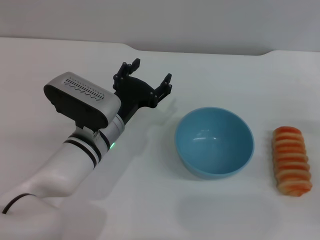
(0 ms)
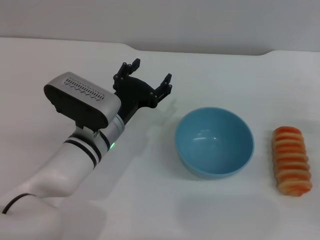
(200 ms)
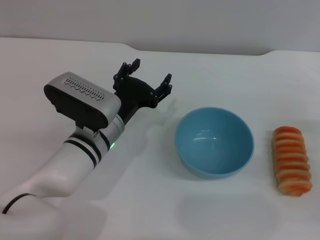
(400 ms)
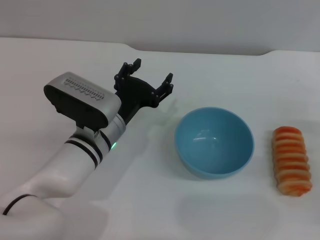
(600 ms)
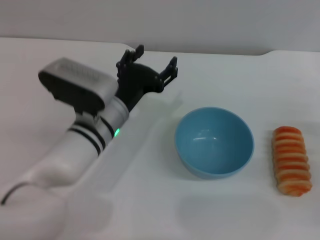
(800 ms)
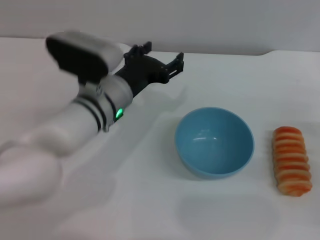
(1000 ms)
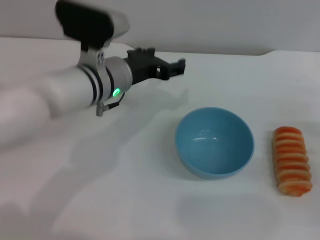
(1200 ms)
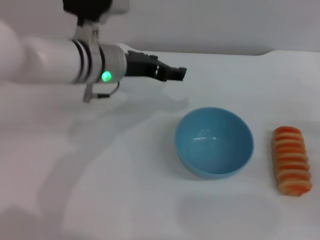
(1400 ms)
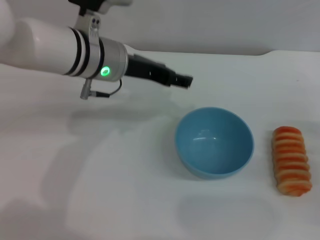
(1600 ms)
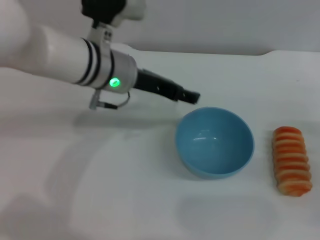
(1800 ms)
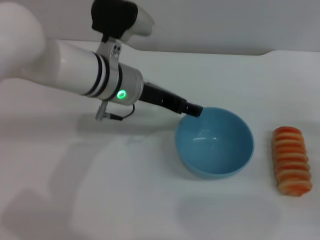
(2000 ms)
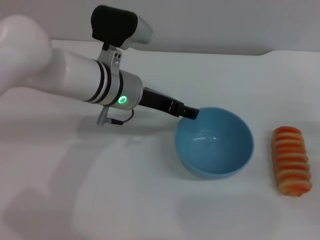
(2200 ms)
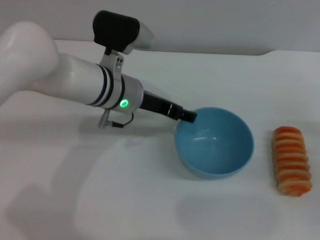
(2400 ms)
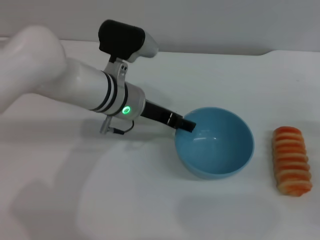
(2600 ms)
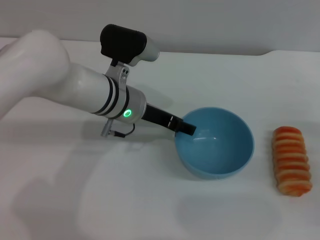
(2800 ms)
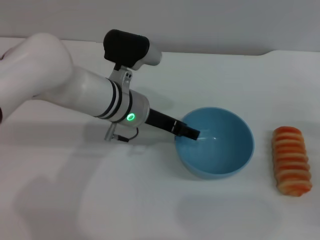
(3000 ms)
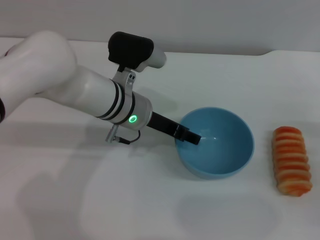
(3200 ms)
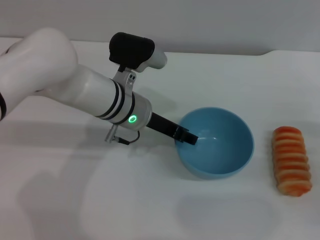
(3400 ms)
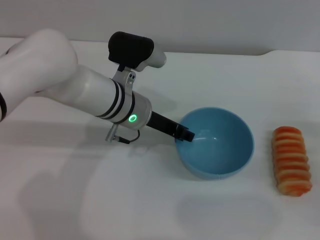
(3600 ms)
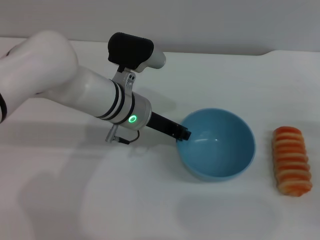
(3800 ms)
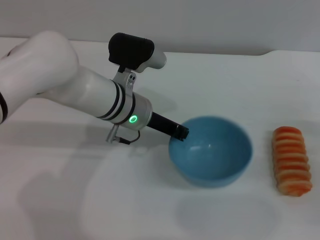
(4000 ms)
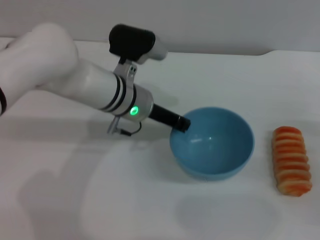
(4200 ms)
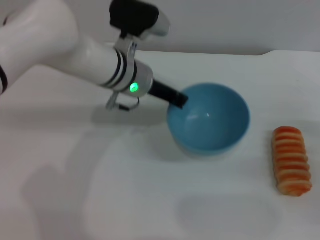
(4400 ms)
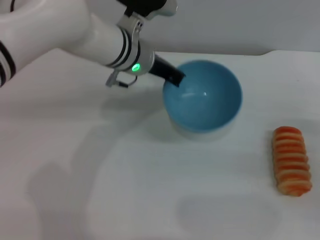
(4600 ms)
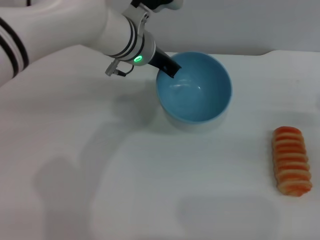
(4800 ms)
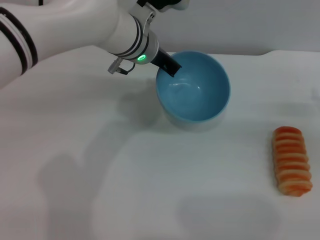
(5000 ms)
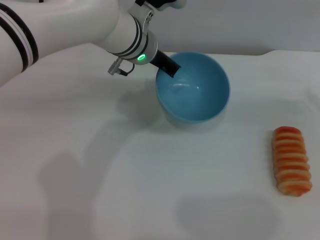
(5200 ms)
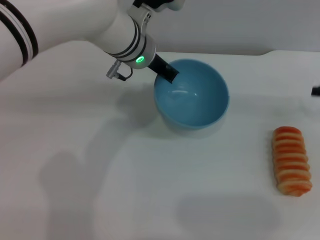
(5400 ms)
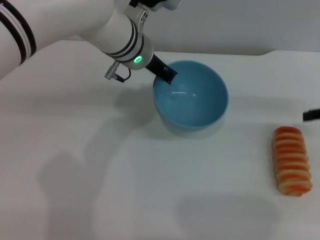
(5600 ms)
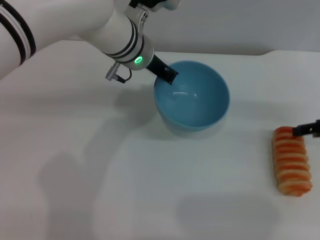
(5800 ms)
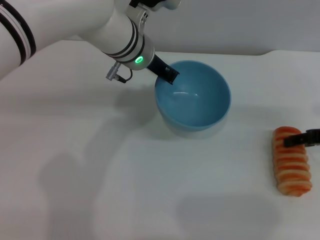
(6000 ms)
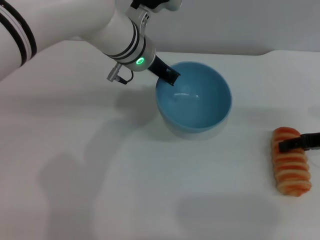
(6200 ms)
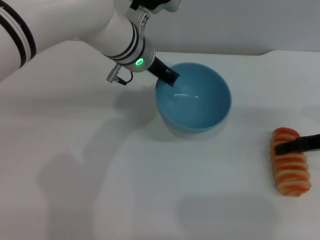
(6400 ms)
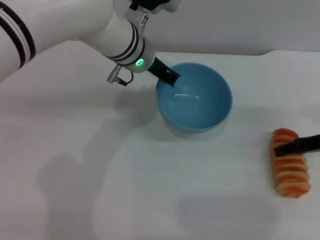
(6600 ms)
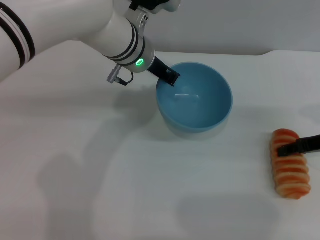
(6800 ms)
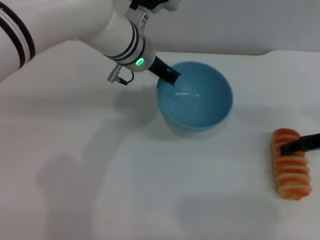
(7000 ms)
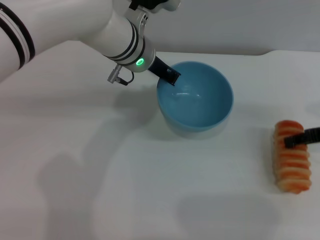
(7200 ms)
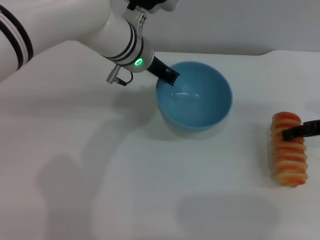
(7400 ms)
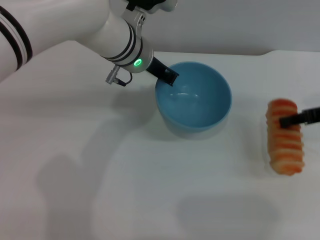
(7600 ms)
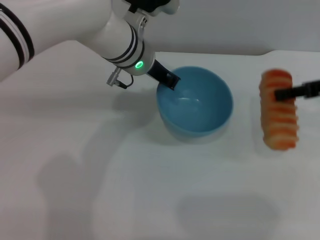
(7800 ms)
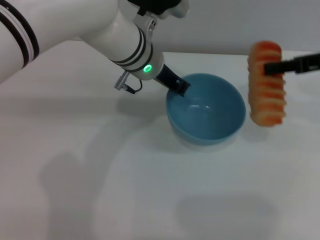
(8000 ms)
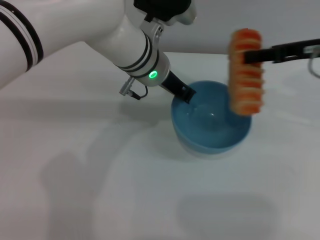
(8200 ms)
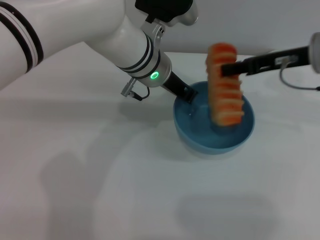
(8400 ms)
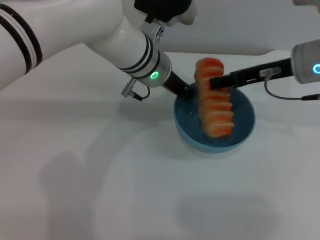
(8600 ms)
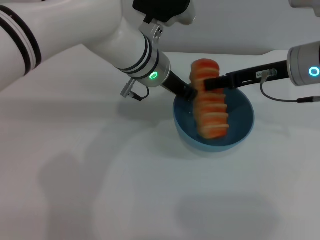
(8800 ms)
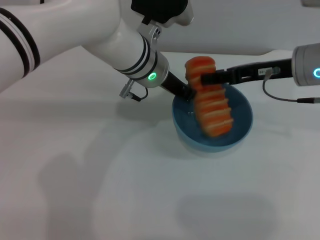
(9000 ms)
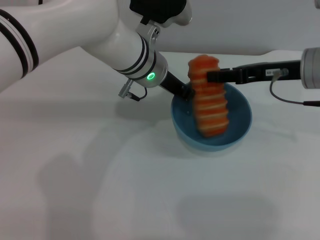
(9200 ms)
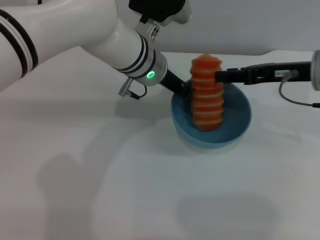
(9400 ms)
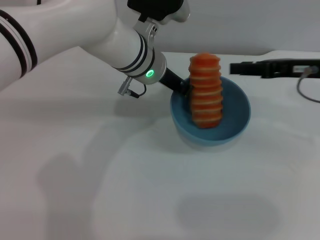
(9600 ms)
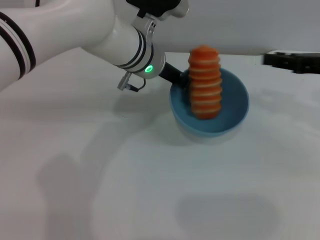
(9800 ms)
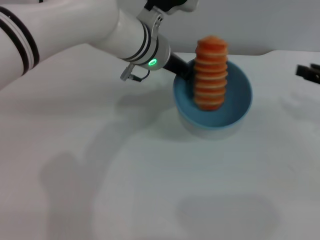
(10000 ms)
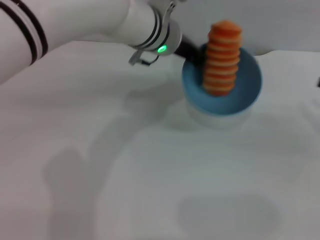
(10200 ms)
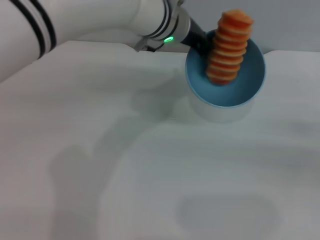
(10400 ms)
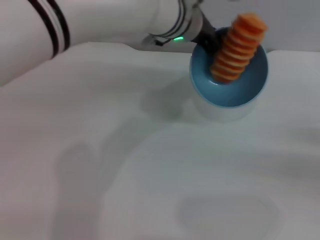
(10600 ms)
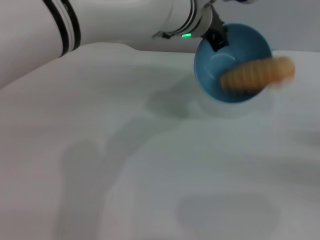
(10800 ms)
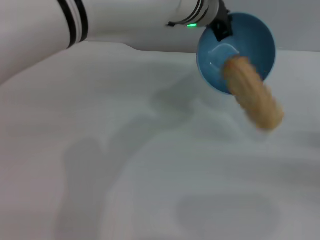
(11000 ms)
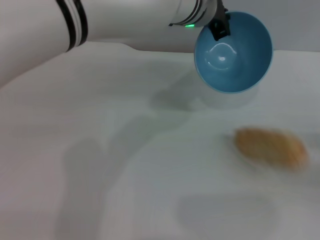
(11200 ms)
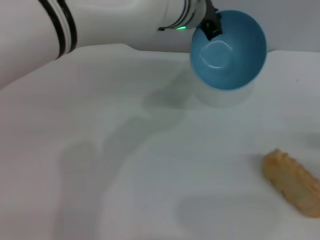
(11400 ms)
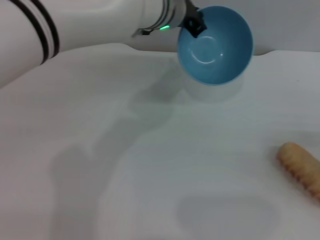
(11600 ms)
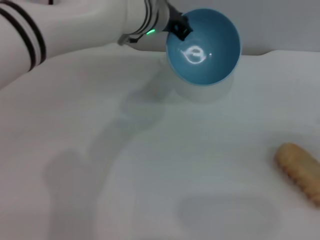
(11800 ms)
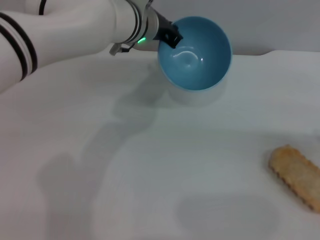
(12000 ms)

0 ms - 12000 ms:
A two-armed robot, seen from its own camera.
Task of the whole recording: put the bread into the blue bowl and pour it out repeatedly.
Step, 0 ms - 4200 ms: Pick up the bowl with the left gripper.
Step, 4400 ms - 7400 ms: Pick up the bread with the right gripper.
Step, 7600 ms - 9400 ms: Place the bread into the bowl.
Step, 9800 ms - 11200 ms: Pour the bread out of the bowl.
0 ms - 1600 ms: The left gripper is displaced upward and forward by approximately 15 cm.
1600 ms - 3000 ms: The left gripper shifts about 10 cm downward.
3000 ms - 4400 ms: The left gripper closes up.
4400 ms - 6000 ms: The right gripper travels forward and upward by approximately 10 cm.
6000 ms - 7600 ms: The right gripper closes its fingers.
7600 ms - 9000 ms: The right gripper goes about 10 cm to the left.
9000 ms - 10400 ms: The left gripper shifts by about 5 cm; the right gripper travels to the right, backward and downward by approximately 25 cm.

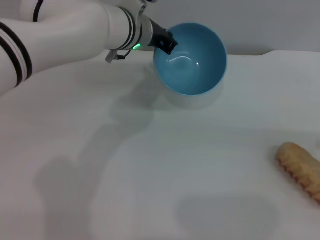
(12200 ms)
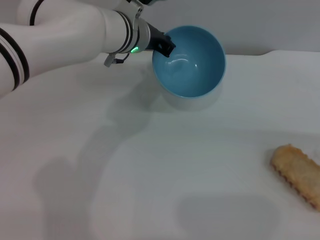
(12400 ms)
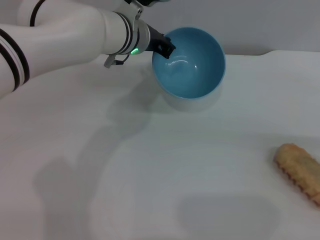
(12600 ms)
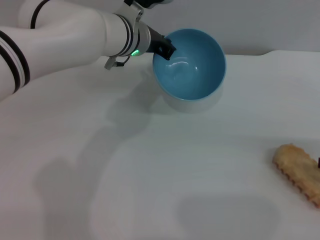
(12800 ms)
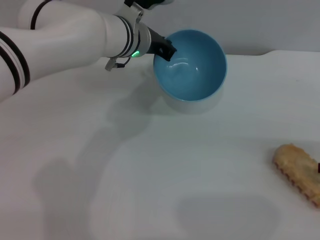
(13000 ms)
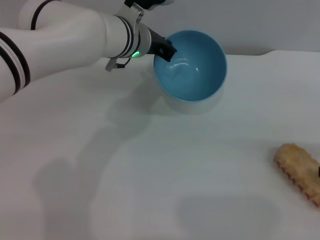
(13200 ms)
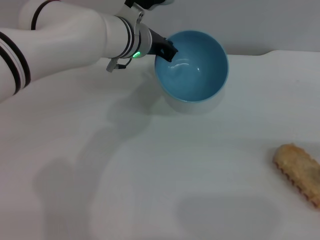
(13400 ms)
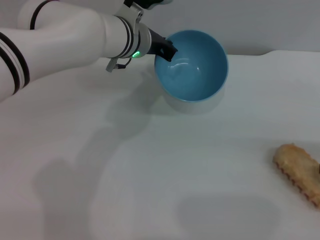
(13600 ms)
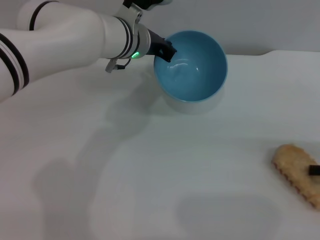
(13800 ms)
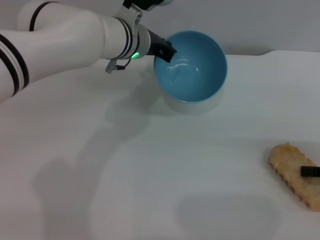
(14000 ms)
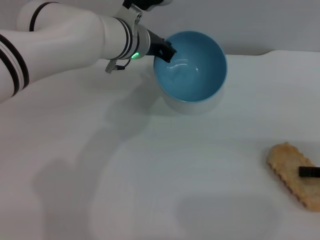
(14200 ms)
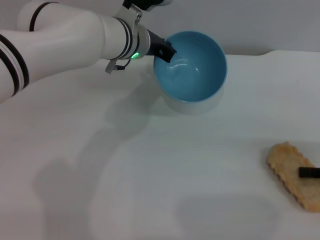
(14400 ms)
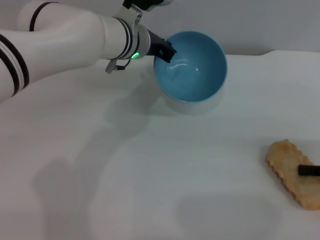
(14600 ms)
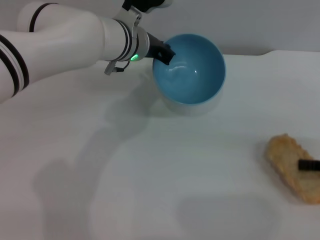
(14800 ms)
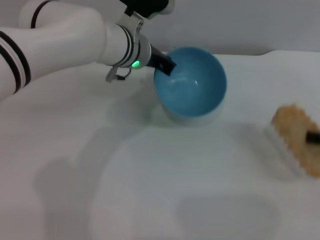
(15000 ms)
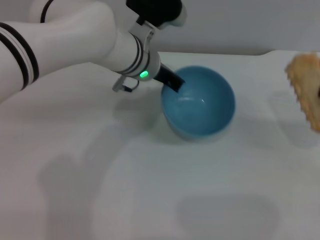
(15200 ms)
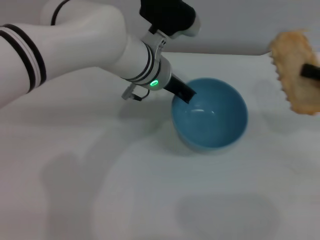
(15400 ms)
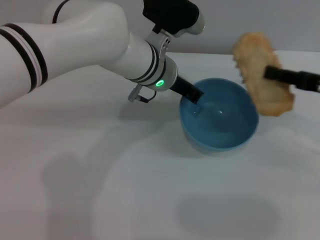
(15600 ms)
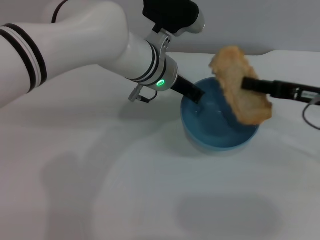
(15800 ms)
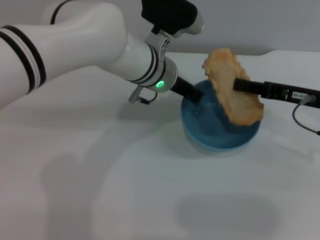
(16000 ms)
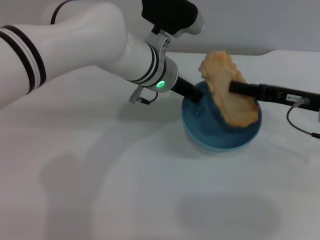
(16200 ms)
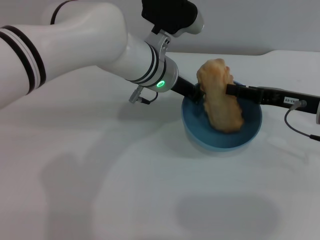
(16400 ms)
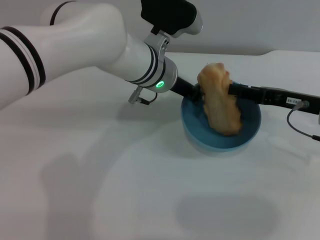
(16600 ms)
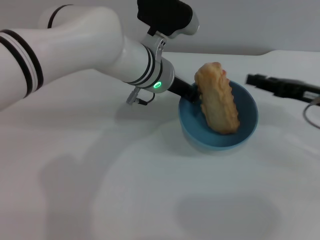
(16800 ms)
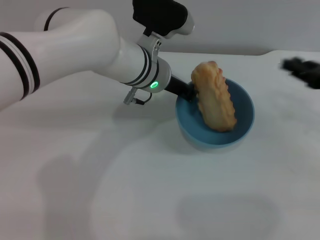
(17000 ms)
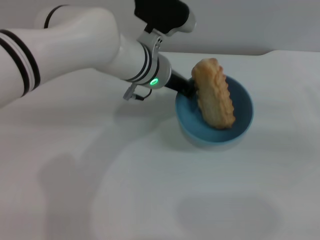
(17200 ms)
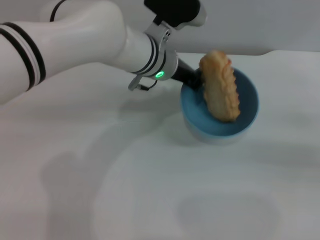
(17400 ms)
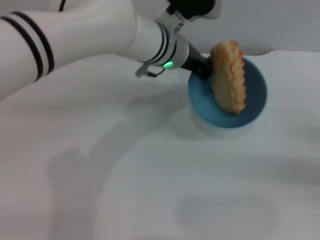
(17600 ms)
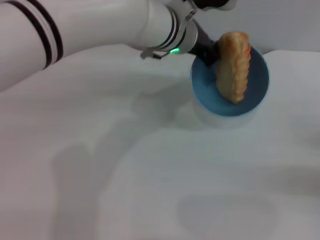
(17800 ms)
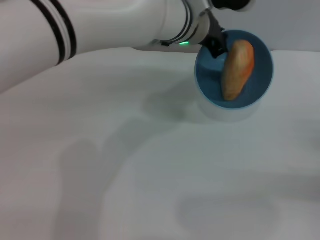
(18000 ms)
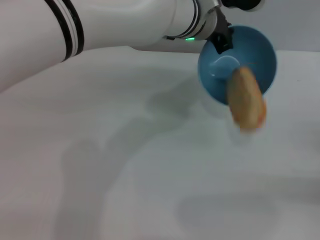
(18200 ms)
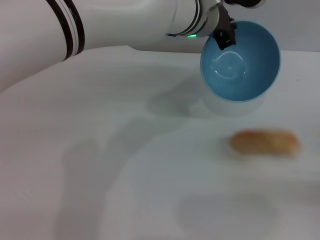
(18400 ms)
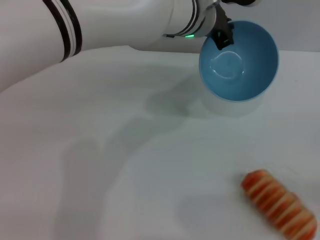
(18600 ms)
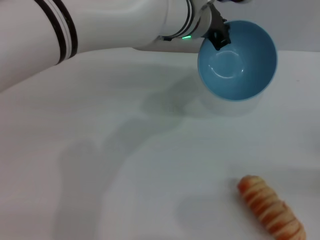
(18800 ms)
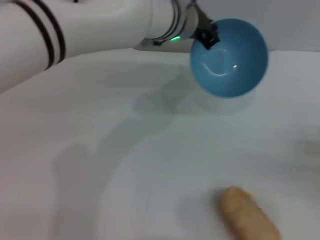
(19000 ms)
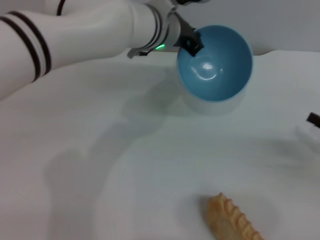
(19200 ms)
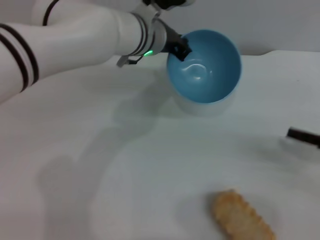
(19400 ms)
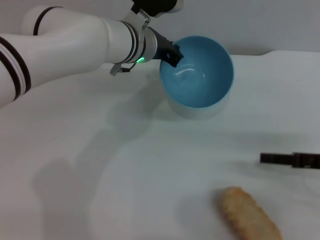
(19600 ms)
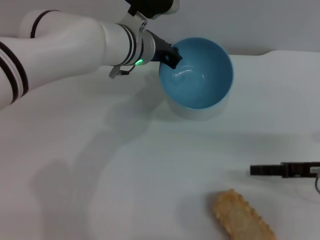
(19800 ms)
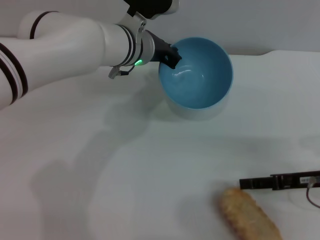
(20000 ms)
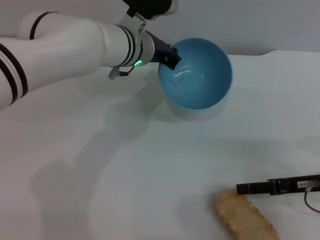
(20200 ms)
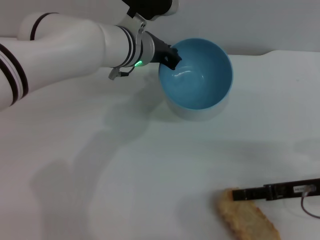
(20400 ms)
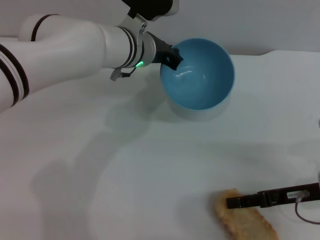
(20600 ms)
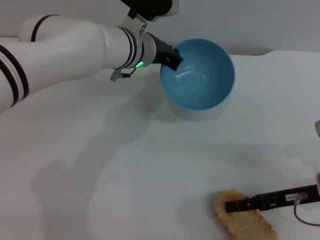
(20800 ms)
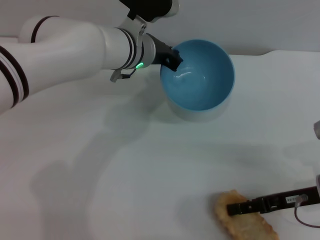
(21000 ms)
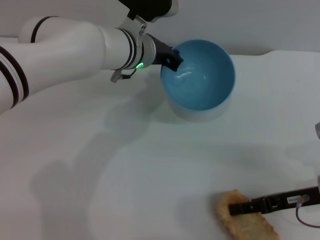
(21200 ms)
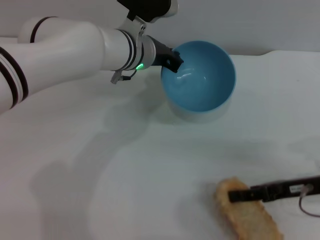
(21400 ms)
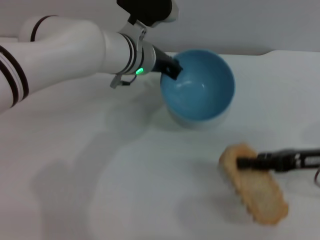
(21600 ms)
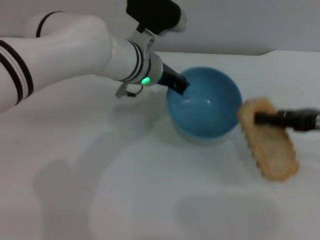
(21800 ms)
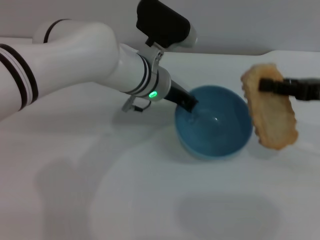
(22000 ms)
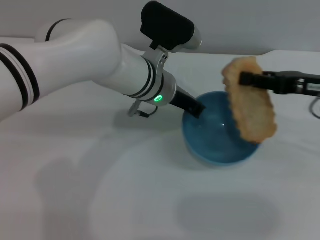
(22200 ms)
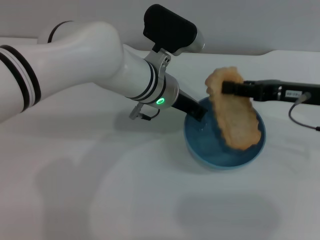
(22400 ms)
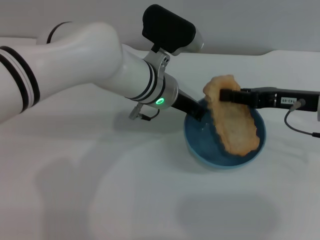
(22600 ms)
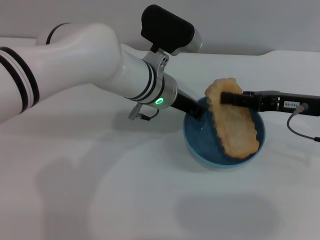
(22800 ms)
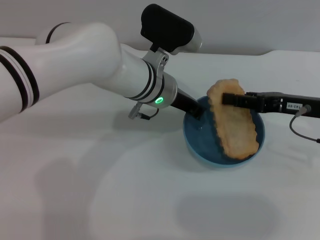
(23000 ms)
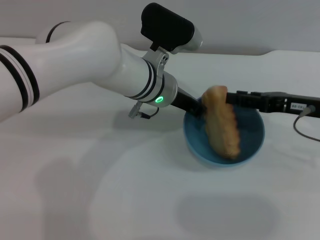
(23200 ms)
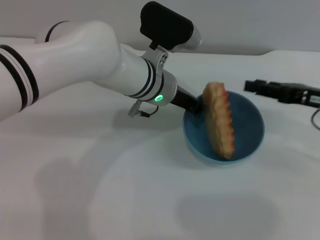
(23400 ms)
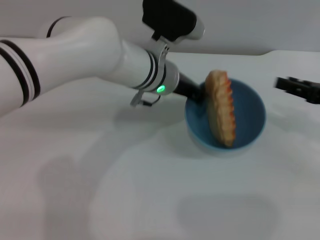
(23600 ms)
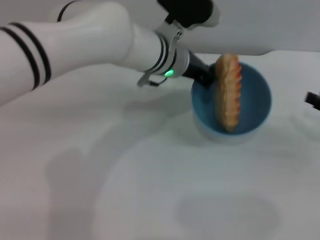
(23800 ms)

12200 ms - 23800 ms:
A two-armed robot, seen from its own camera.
Task of the whole recording: put the bread into the blue bowl and pour it out repeatedly.
Step, 12200 ms - 15000 ms: Pick up the bread with the right gripper.
Step, 15200 ms - 16600 ms: Place the bread into the bowl.
Step, 17000 ms - 19000 ms: Pour the bread out of the bowl.
Step, 19200 ms - 21400 ms: Pick up the bread with the right gripper.
Step, 21800 ms - 23200 ms: Place the bread into the bowl.
12200 ms - 13600 ms: The grippers make only small movements.
13600 ms - 15000 ms: The right gripper closes up.
15000 ms - 16600 ms: The right gripper travels to the left and forward by roughly 15 cm.
16600 ms - 18000 ms: The left gripper travels upward by roughly 5 cm, while the right gripper moves to the right, backward and downward, about 20 cm.
18000 ms - 19400 ms: The left gripper travels to the left by roughly 5 cm; the right gripper ends up roughly 5 cm from where it was.
19400 ms - 21000 ms: The right gripper moves to the left, some 10 cm.
21000 ms - 22400 ms: The right gripper goes some 10 cm upward and forward, and closes up, while the left gripper ends up roughly 5 cm from where it was.
22400 ms - 23800 ms: The right gripper goes some 10 cm to the right and backward, and opens.
